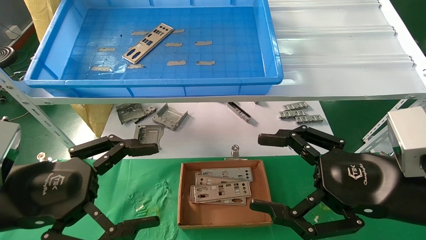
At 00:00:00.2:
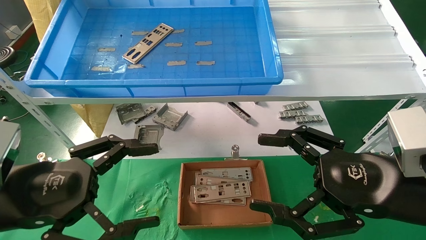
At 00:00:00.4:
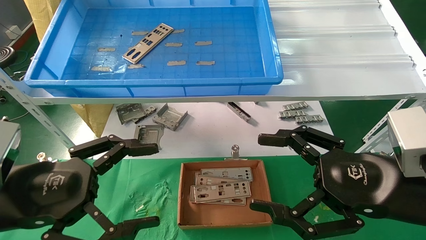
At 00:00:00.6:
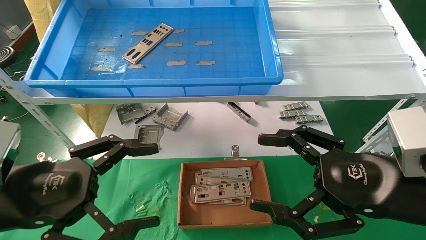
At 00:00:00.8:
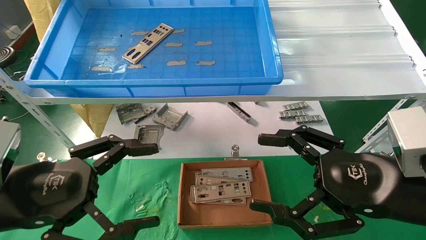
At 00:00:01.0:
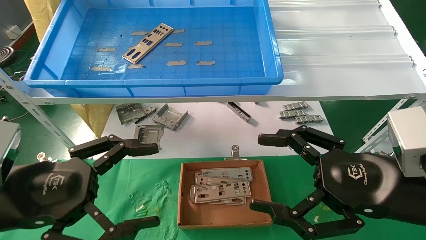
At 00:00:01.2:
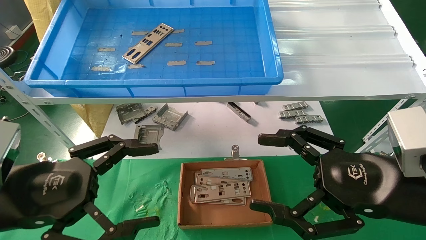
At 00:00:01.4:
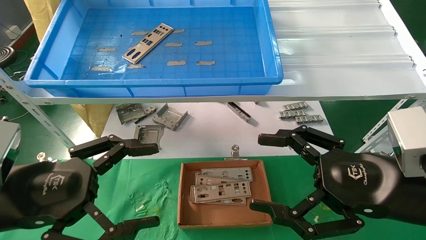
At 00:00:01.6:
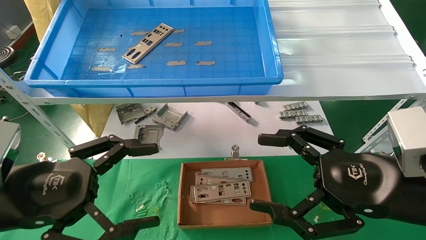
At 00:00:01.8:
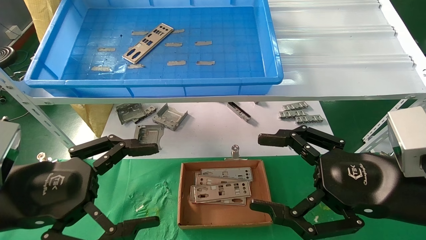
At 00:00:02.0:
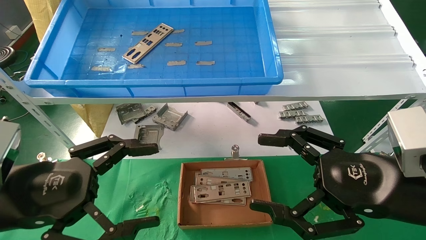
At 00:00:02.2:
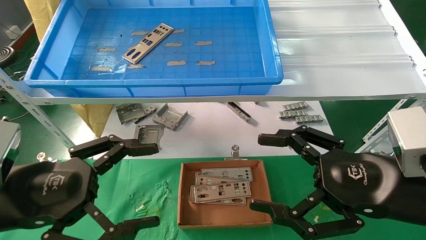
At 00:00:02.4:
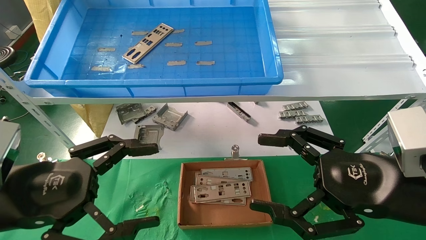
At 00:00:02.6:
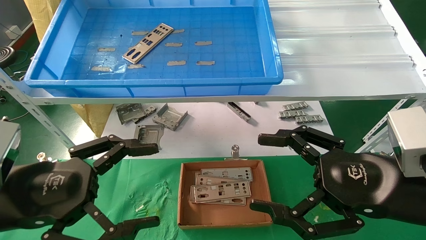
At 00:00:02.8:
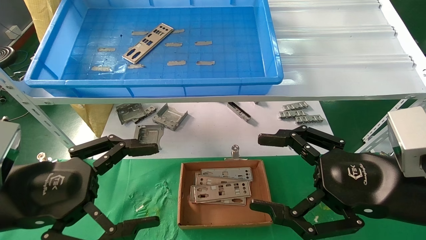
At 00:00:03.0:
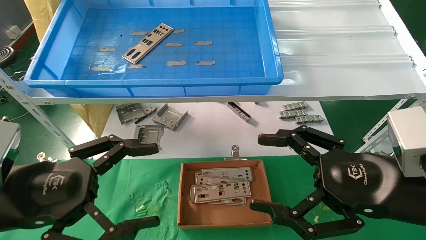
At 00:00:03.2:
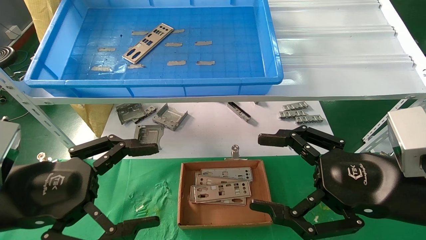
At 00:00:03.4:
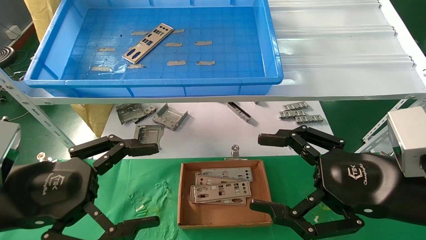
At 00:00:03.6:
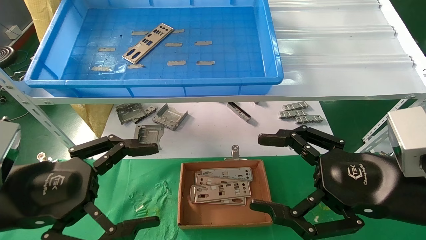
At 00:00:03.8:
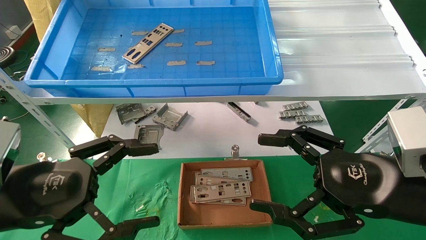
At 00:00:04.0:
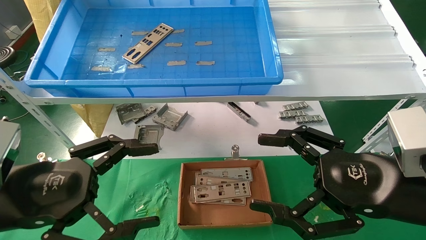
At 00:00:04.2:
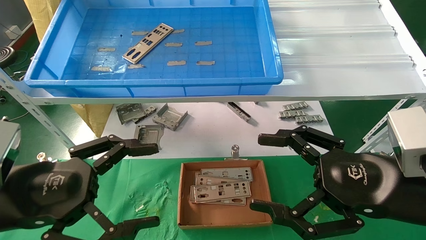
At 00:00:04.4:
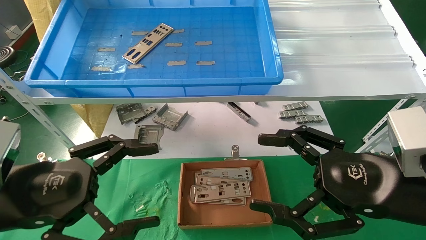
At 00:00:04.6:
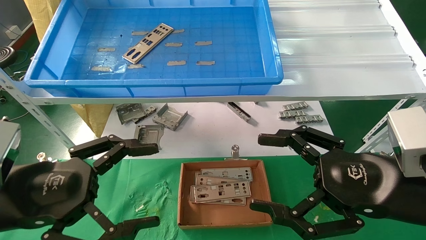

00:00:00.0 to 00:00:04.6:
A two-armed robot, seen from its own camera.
Task of the whole recording: pick up the parts on the tray and put them in the cardboard box.
00:00:00.0 to 00:00:04.6: The two grippers keep their place.
